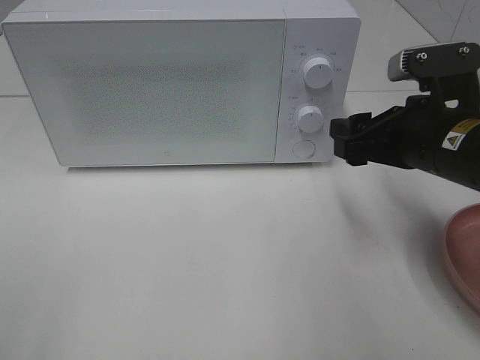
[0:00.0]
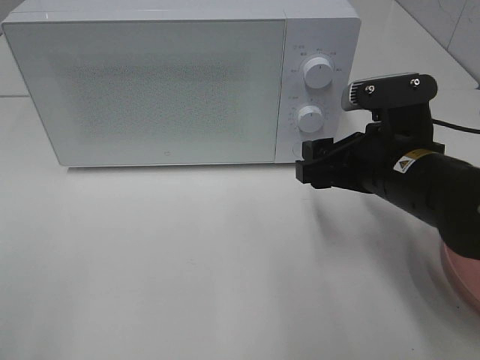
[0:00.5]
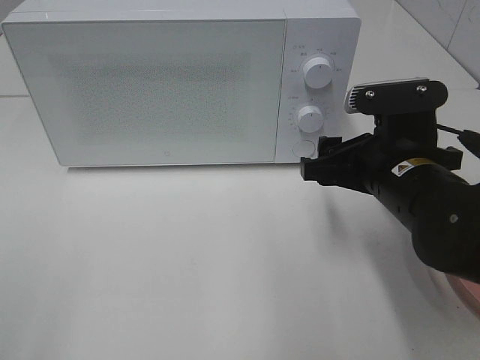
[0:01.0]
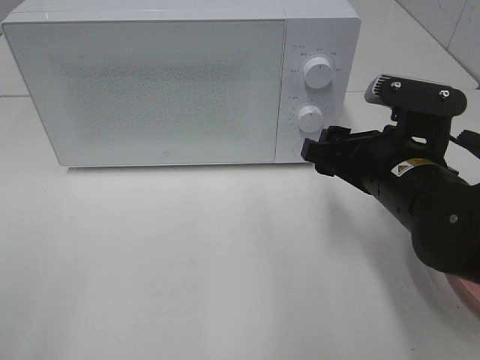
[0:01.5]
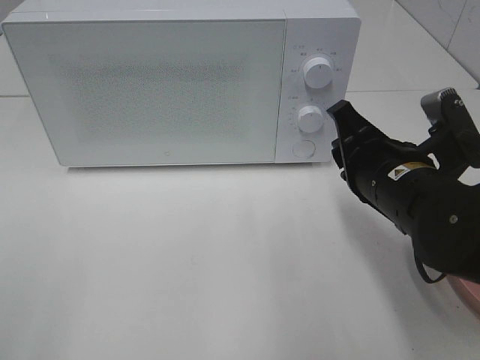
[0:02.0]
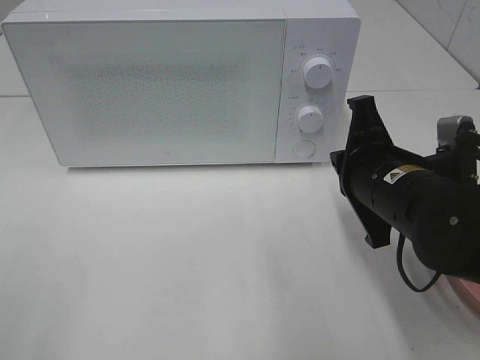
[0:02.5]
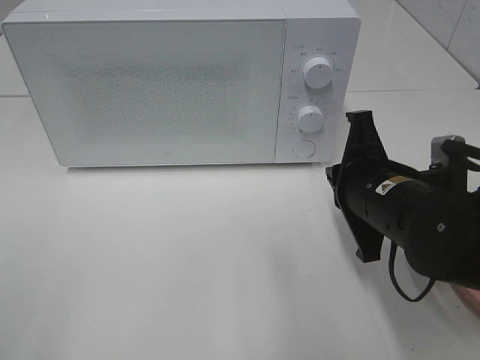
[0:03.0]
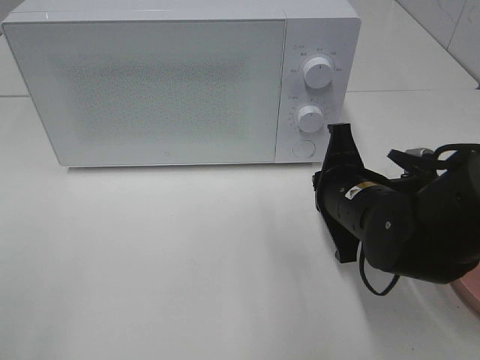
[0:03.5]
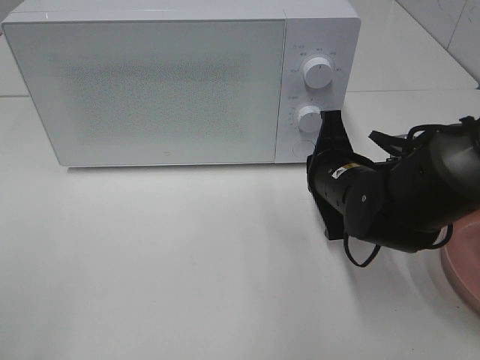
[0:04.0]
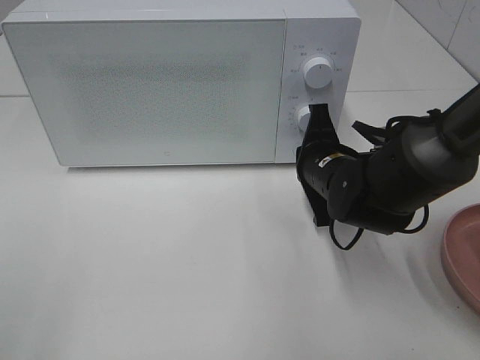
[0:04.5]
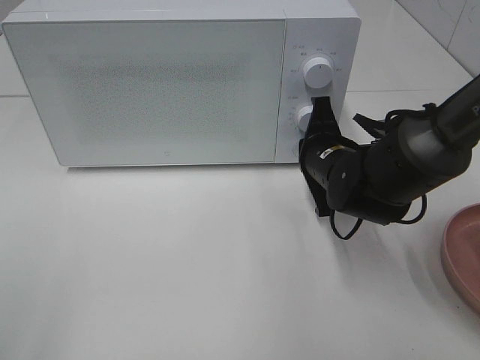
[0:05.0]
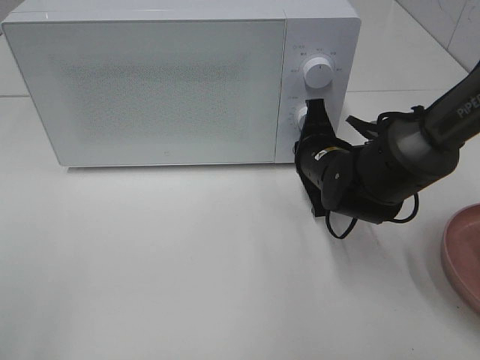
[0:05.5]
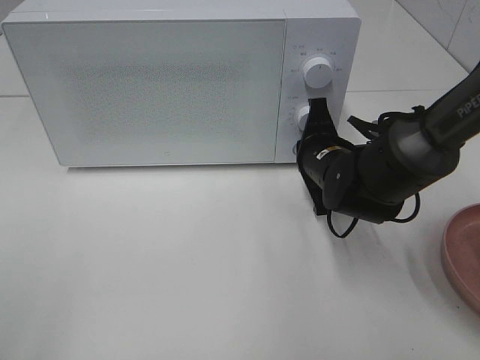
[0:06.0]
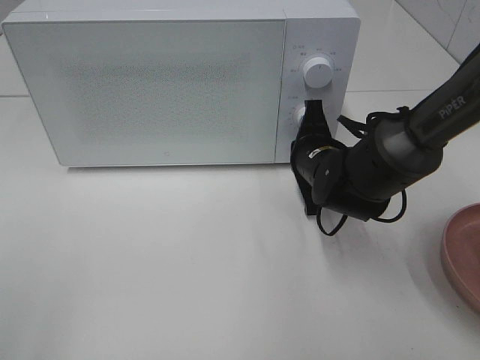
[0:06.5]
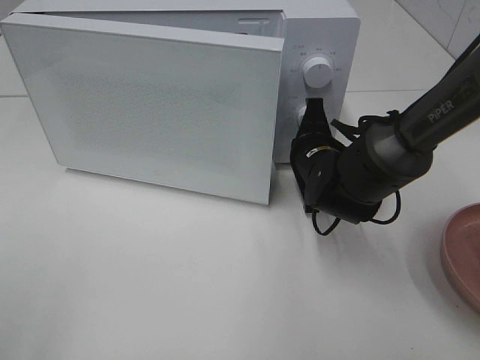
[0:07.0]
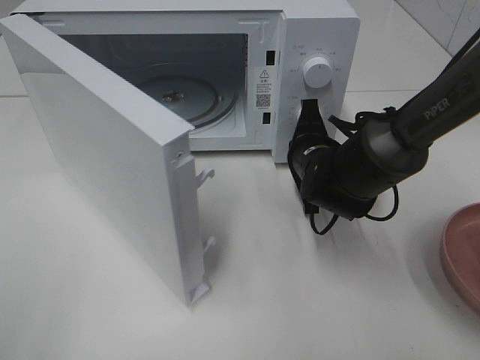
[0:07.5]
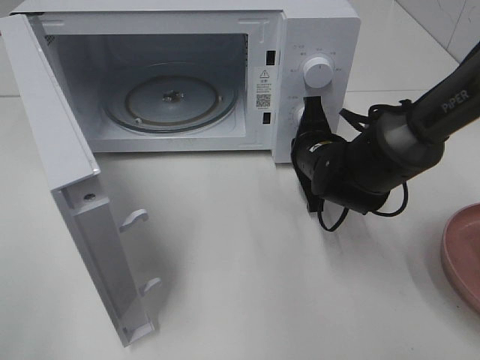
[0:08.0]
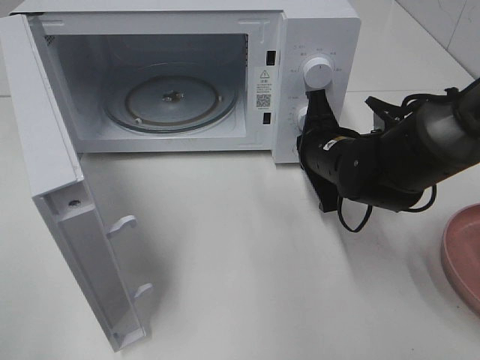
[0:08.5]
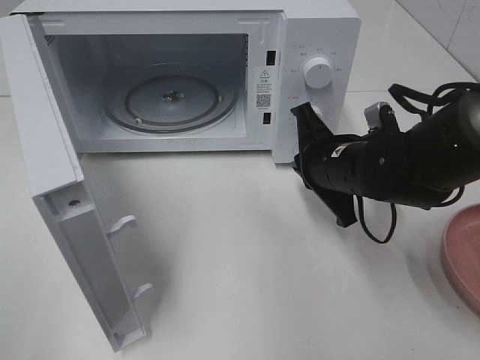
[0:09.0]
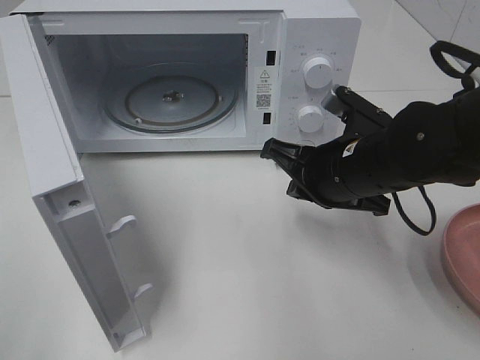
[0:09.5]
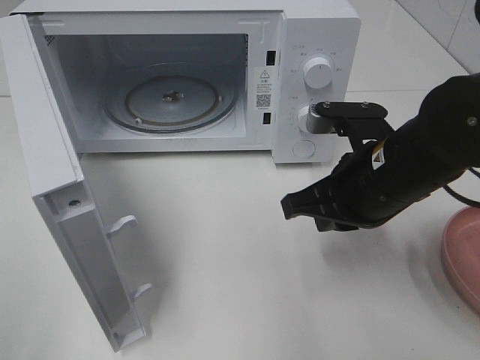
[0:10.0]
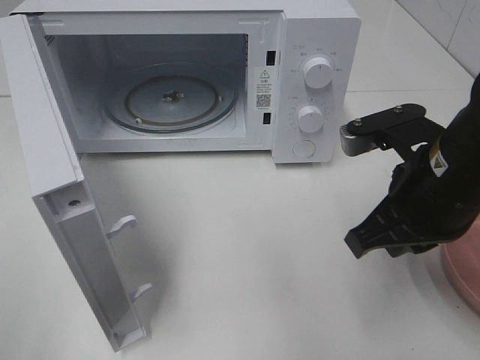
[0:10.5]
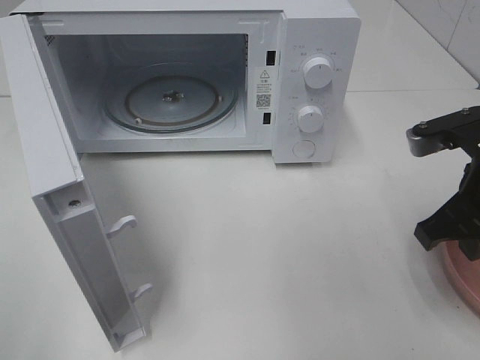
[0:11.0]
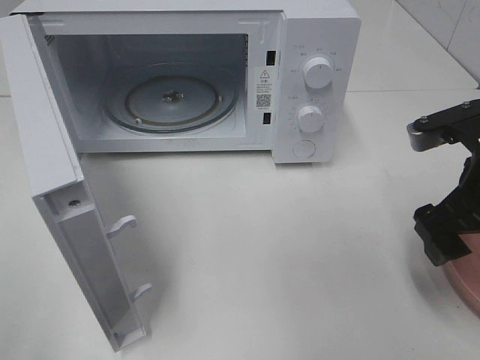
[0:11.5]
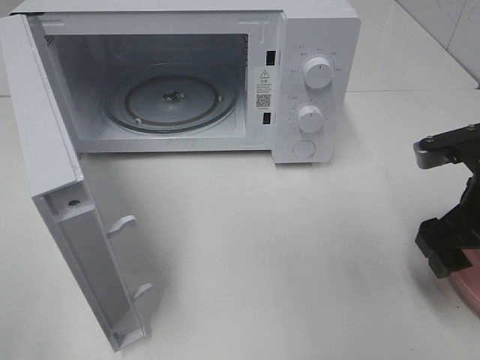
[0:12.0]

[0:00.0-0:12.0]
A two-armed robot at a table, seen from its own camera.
Task of the whole recording: Heat the burger.
Step, 0.0 to 8.0 s: Right hand: press the switch.
0.0 to 2.0 s: The right gripper moves some 5 cm, and closes its fingers.
2.0 to 4.0 s: The right gripper shifts about 10 cm forward and downward, and closes up.
4.0 to 6.0 s: The right gripper ends up about 5 cm from where it was.
8.0 to 10.0 s: The right gripper goes approximately 15 cm backward and upward.
10.0 to 12.0 s: The right gripper is displaced to the right by roughly 10 cm, and opens up.

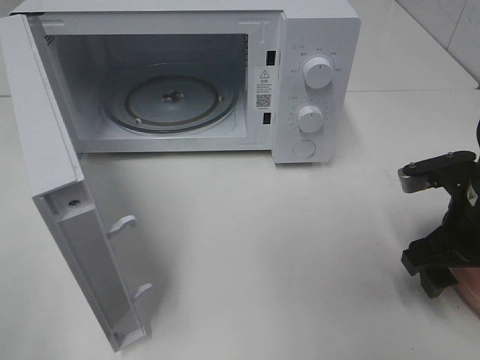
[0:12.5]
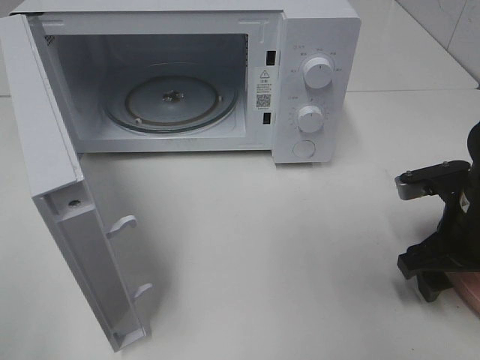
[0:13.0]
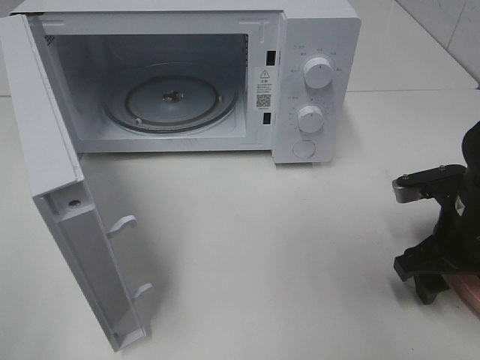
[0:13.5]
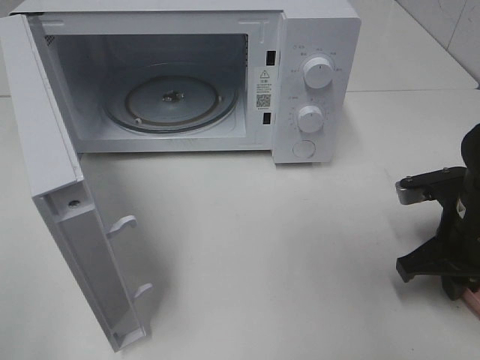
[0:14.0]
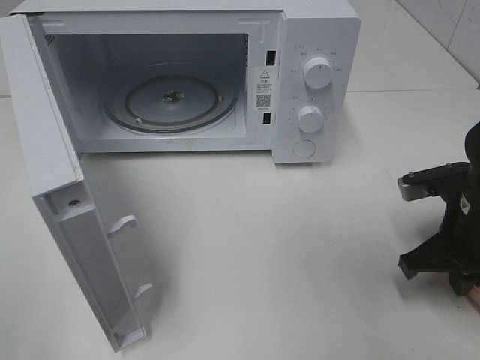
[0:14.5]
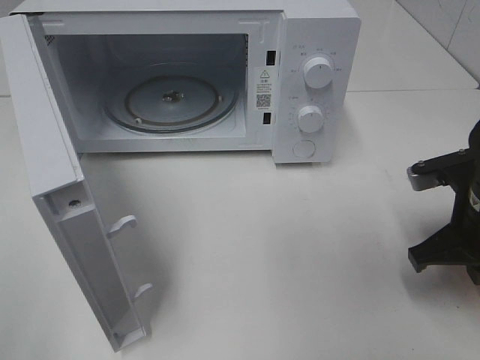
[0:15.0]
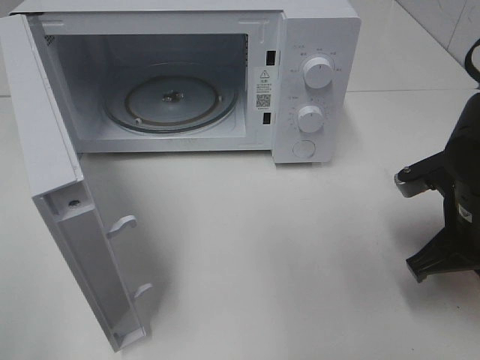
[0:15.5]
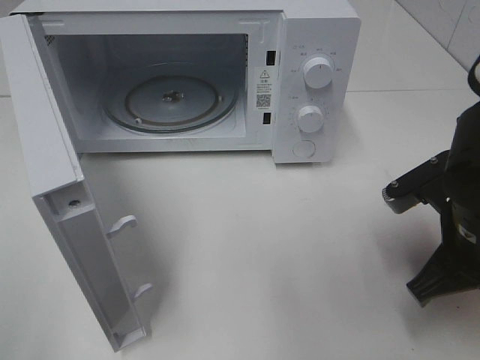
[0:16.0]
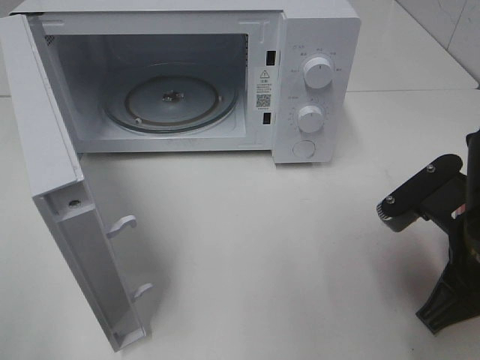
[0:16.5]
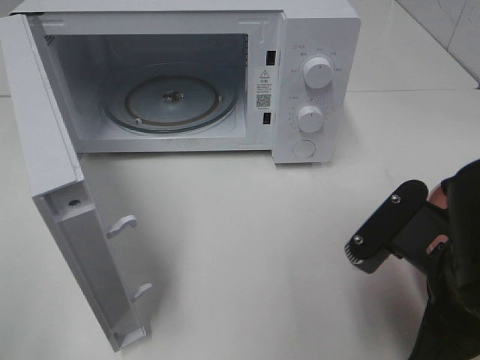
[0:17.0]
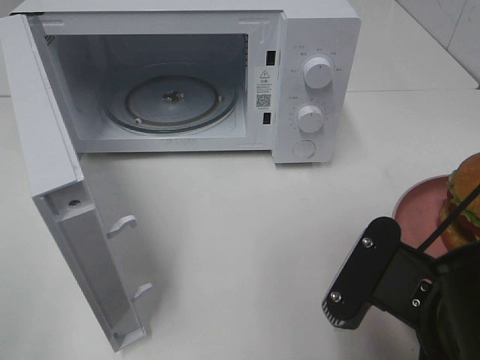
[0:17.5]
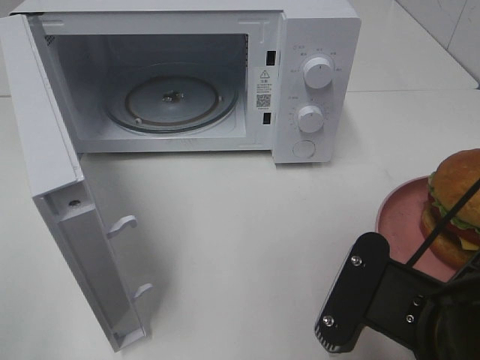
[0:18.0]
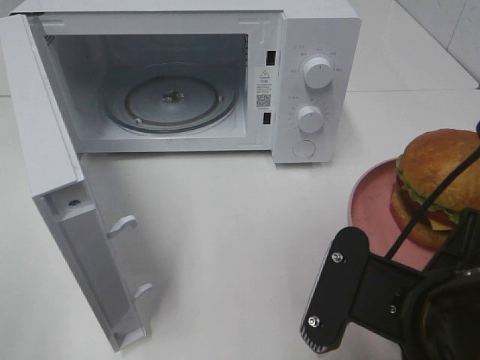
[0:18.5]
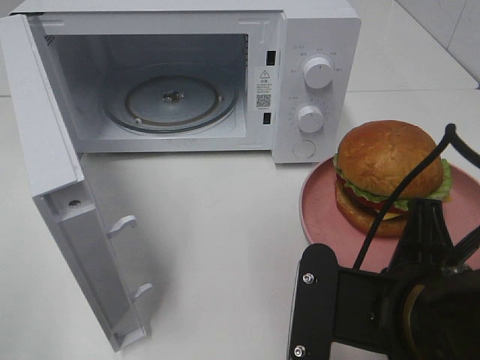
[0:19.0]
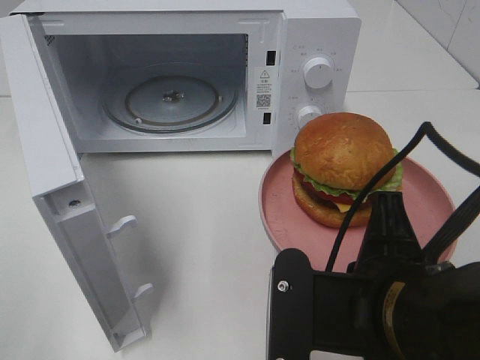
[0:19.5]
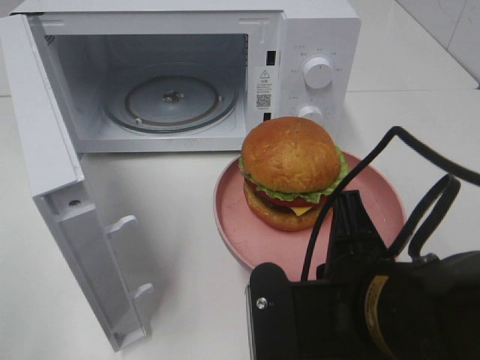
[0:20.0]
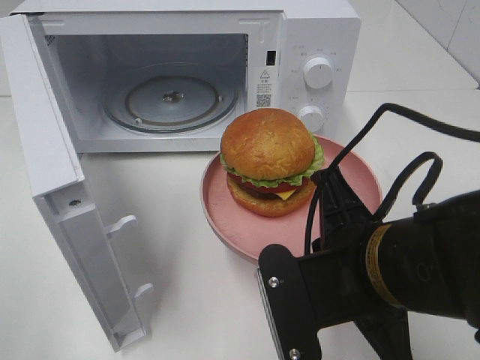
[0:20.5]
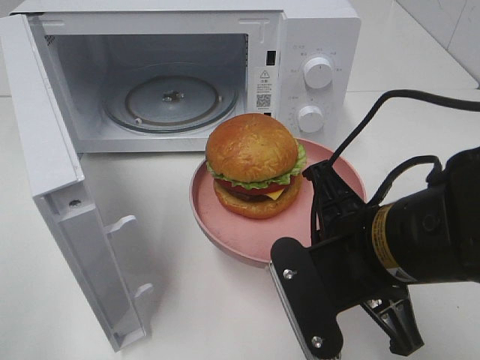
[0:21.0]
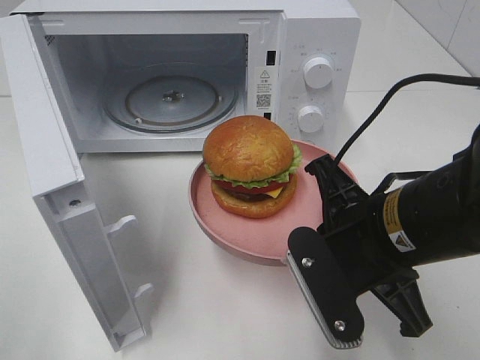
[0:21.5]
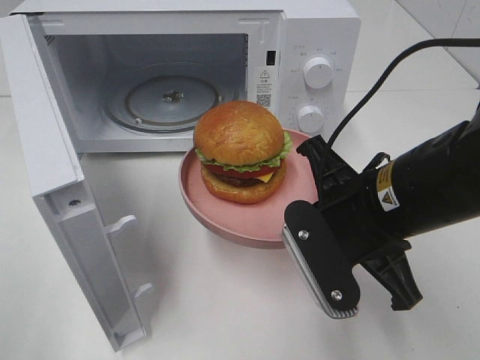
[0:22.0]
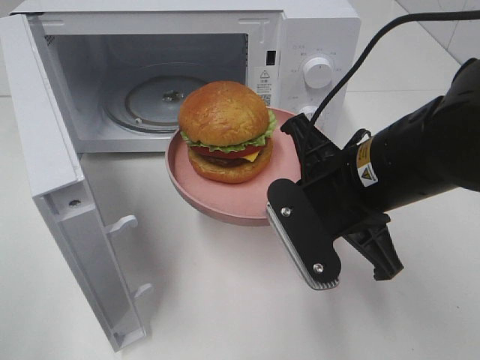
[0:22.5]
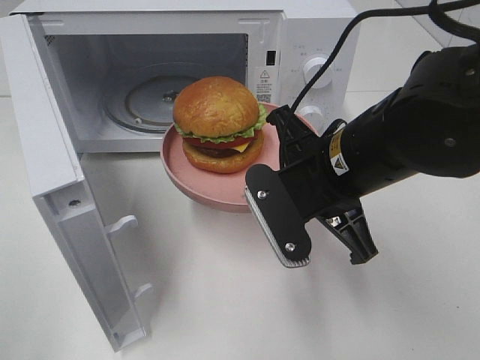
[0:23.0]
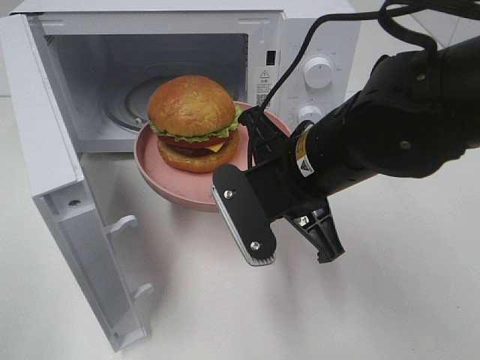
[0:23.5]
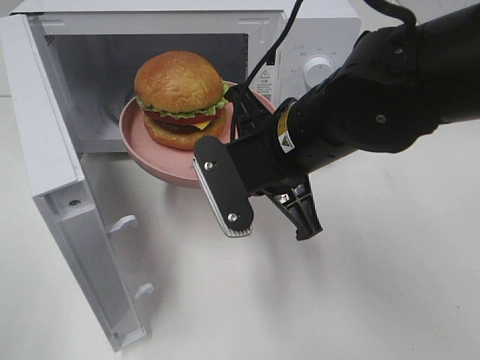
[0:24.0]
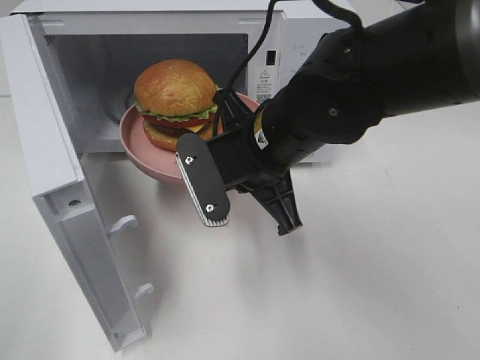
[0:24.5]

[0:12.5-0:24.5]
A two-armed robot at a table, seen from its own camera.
Task of the whole recording: Heat the burger.
12.5 to 14.5 s: The right gripper closes its fingers.
14.5 to 16.5 s: The right gripper shifts roughly 10 cm backward, to the left and upward.
16.5 to 18.5 s: The right gripper is displaced backward and to the left by roughly 10 cm.
20.5 to 22.5 s: The right gripper heads forward, covering some 10 cm.
22.5 to 24.5 s: The right gripper moves to the left and forward, approximately 10 cm.

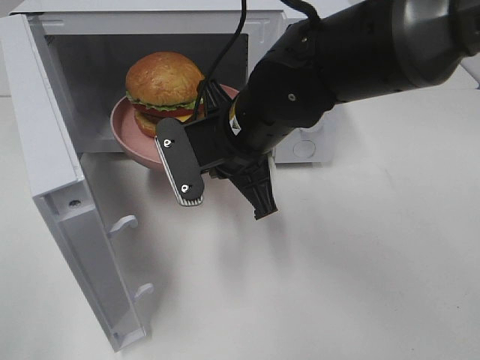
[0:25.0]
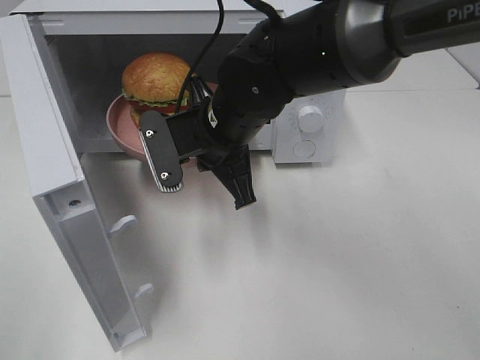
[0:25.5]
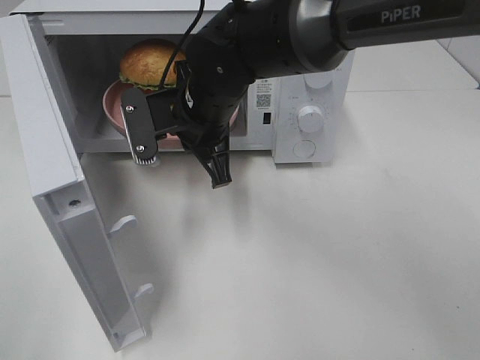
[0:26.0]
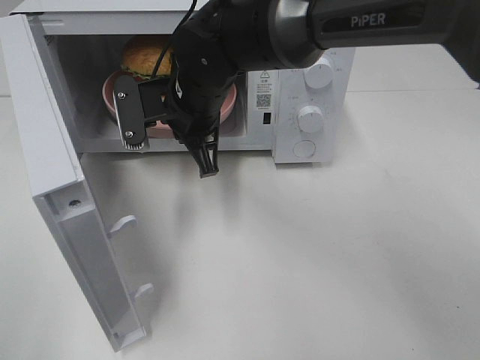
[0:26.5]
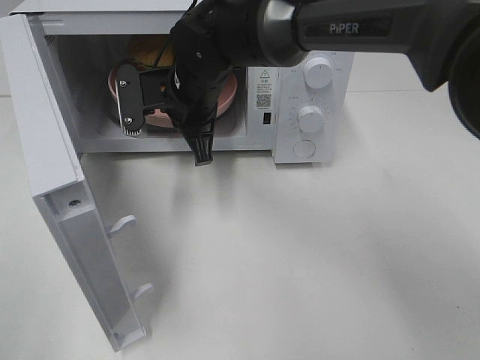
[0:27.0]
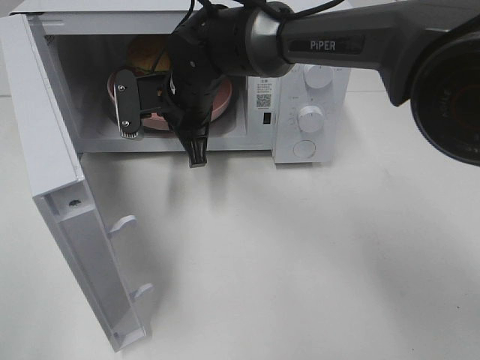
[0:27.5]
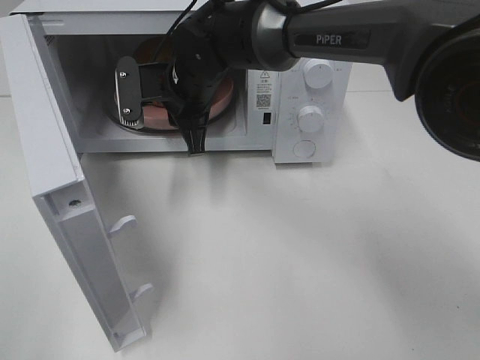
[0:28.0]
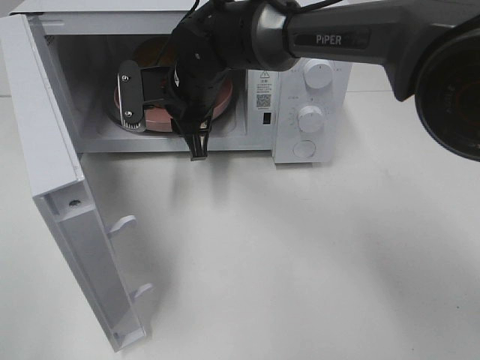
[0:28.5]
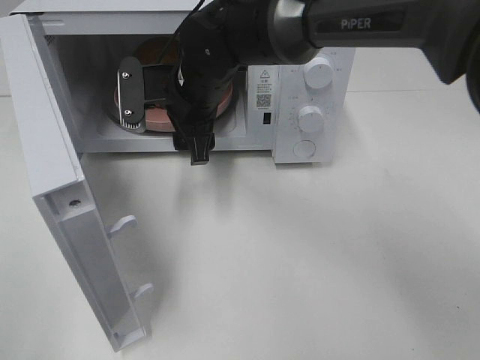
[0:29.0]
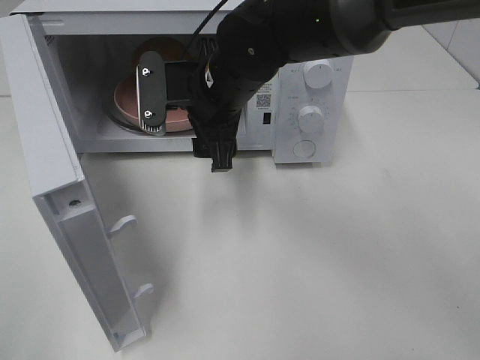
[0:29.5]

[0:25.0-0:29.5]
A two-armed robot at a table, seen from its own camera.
Task of the whole recording: Heat the burger.
Step, 25.0 to 28.0 s: Right hand: place the plate in the microwave.
25.0 to 27.0 s: The right gripper travels forward and to the left by about 10 cm.
27.0 to 29.5 s: The right gripper ends up about 5 cm from where it was, and opens its fingers.
